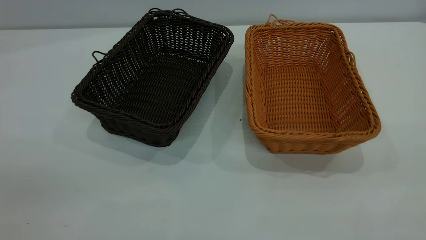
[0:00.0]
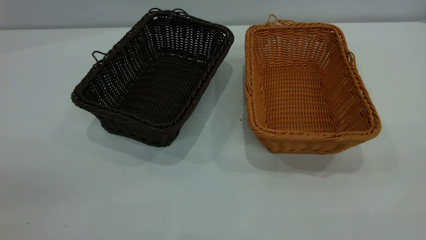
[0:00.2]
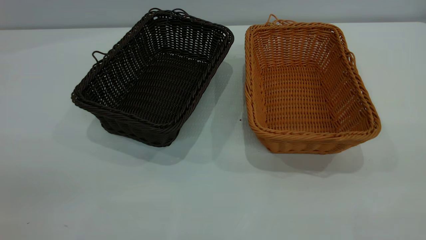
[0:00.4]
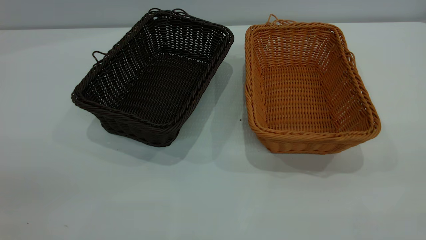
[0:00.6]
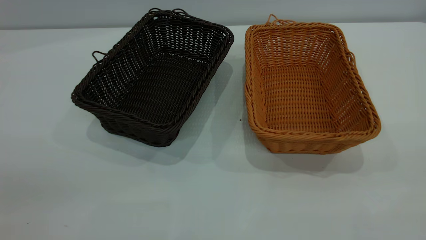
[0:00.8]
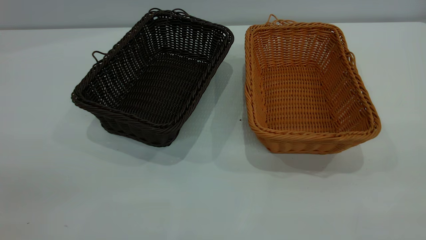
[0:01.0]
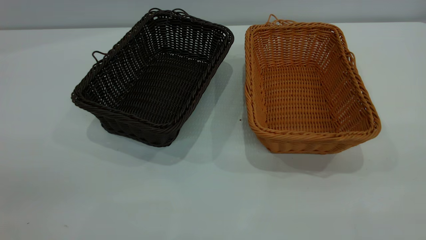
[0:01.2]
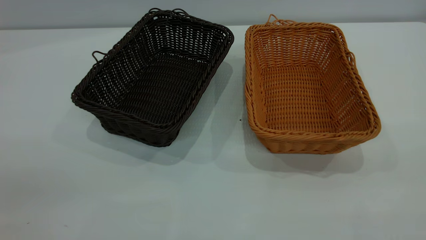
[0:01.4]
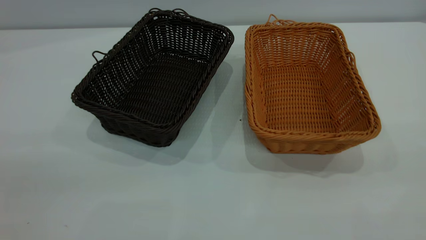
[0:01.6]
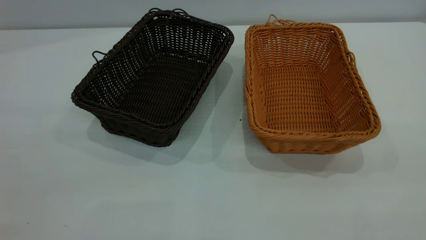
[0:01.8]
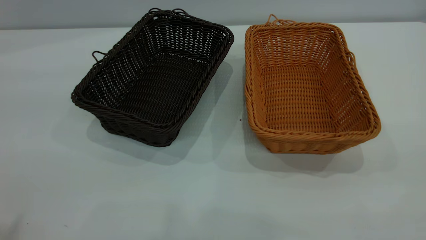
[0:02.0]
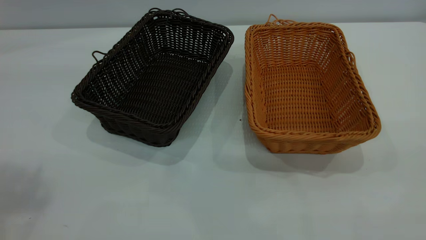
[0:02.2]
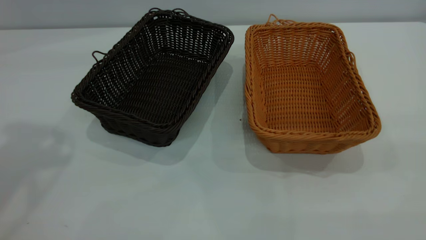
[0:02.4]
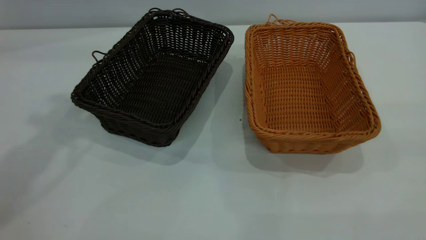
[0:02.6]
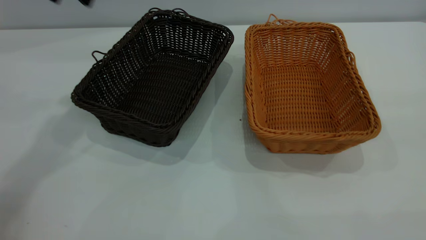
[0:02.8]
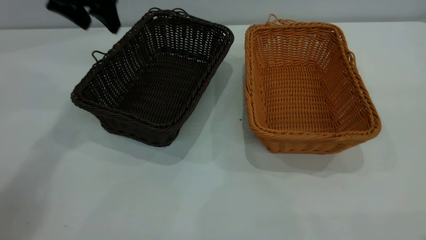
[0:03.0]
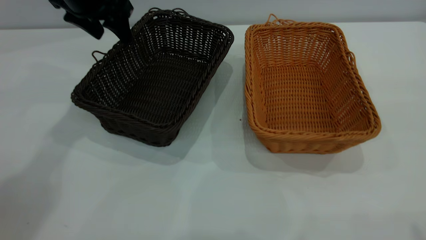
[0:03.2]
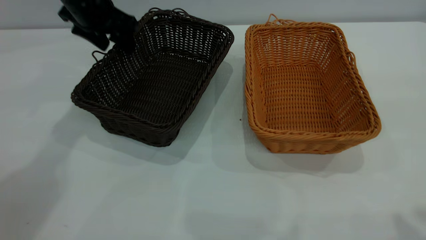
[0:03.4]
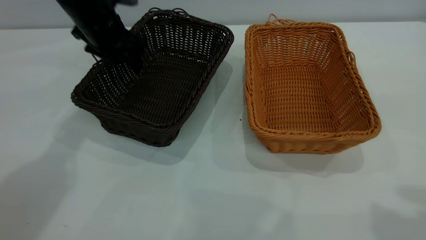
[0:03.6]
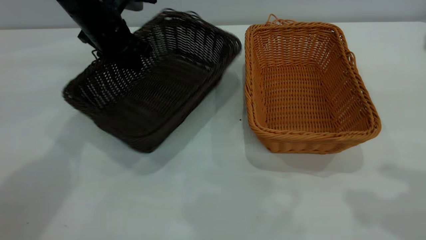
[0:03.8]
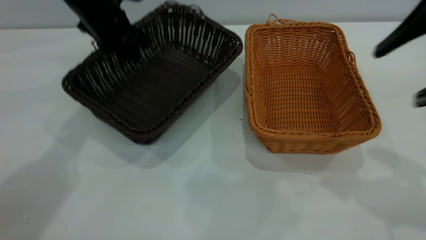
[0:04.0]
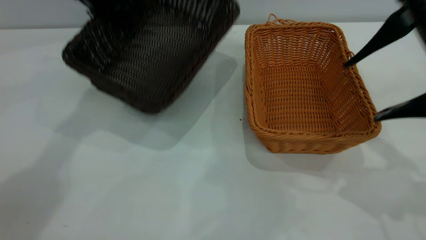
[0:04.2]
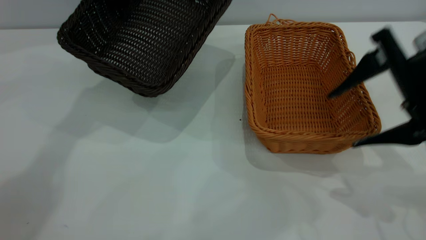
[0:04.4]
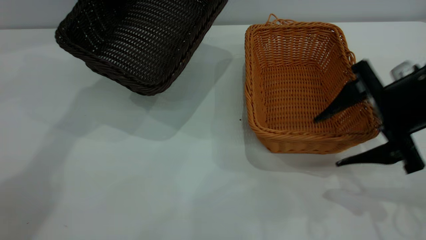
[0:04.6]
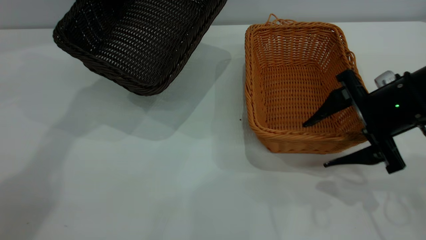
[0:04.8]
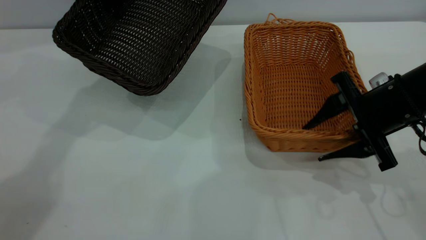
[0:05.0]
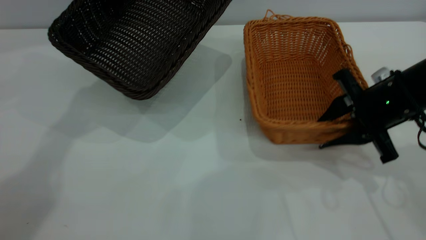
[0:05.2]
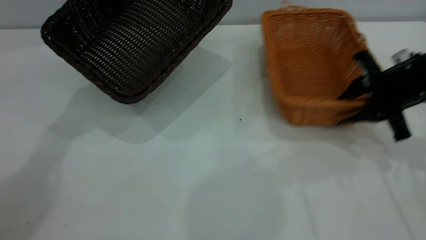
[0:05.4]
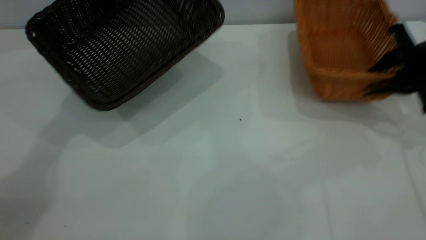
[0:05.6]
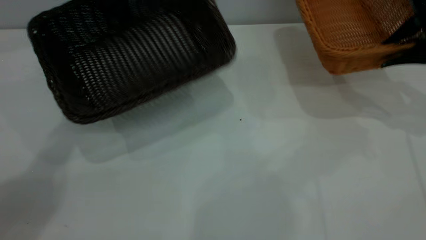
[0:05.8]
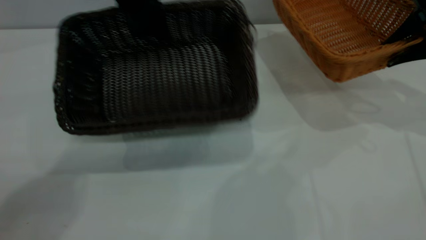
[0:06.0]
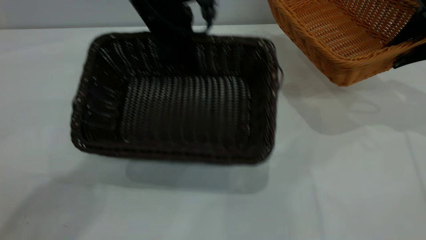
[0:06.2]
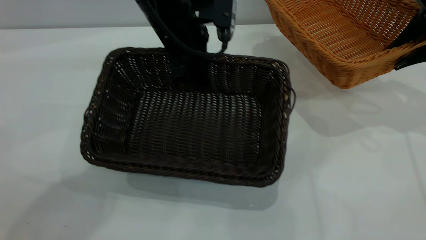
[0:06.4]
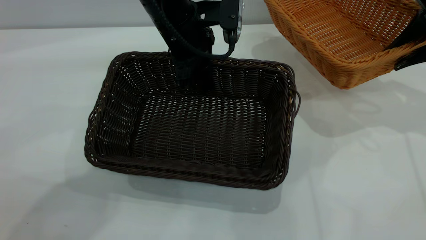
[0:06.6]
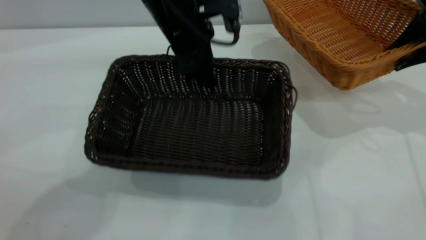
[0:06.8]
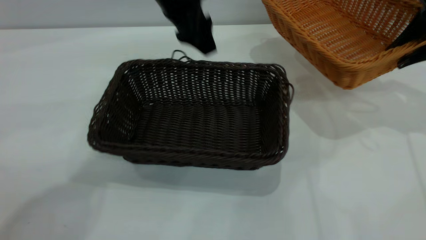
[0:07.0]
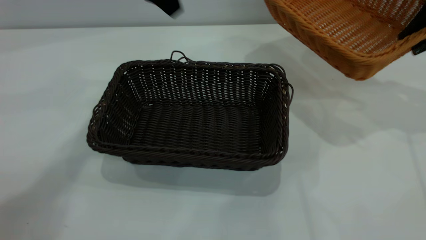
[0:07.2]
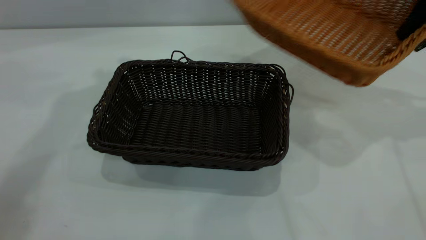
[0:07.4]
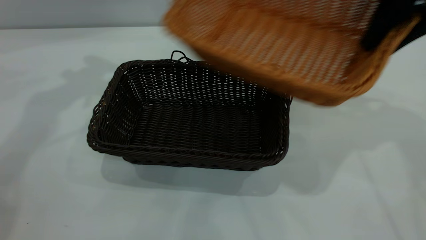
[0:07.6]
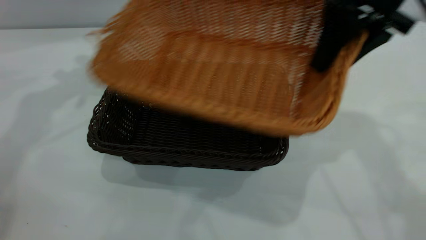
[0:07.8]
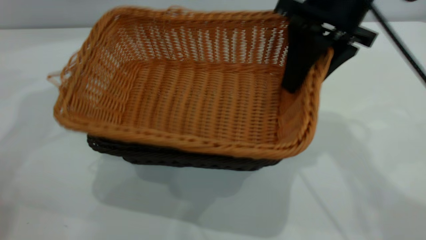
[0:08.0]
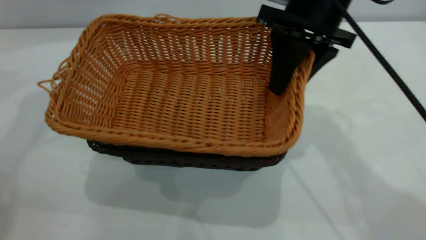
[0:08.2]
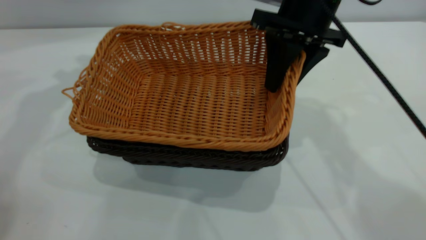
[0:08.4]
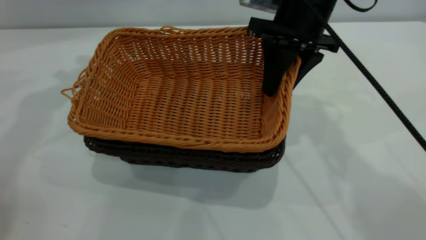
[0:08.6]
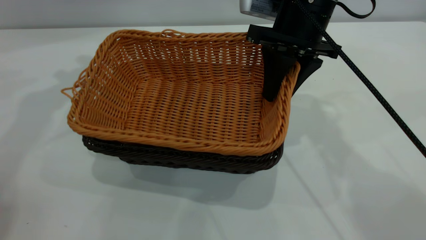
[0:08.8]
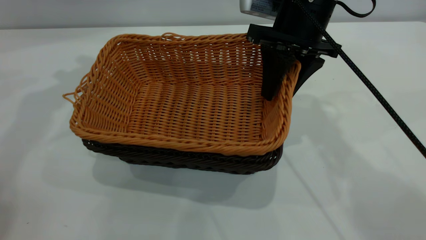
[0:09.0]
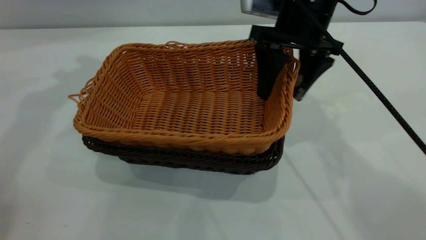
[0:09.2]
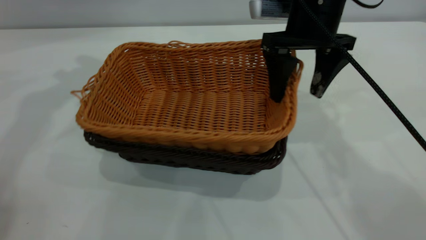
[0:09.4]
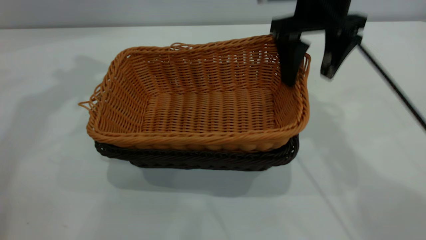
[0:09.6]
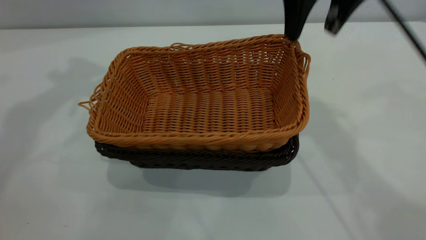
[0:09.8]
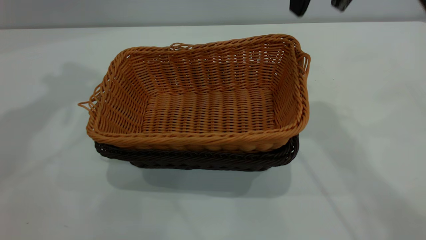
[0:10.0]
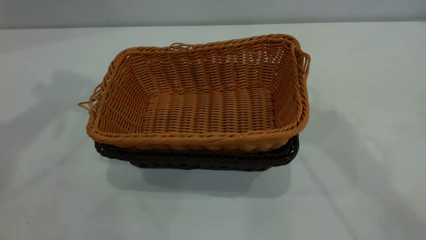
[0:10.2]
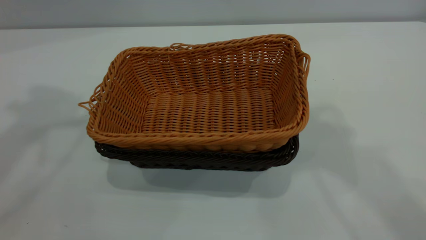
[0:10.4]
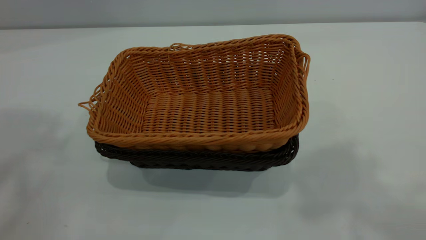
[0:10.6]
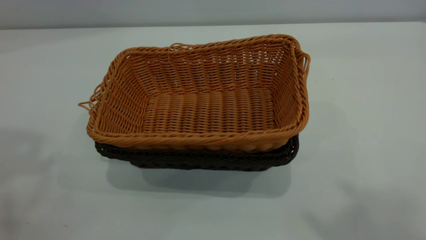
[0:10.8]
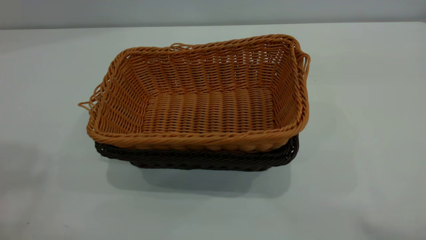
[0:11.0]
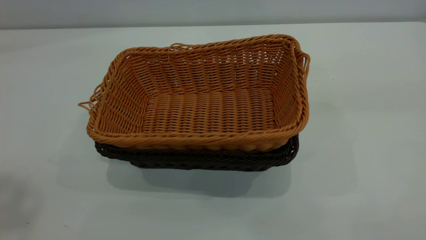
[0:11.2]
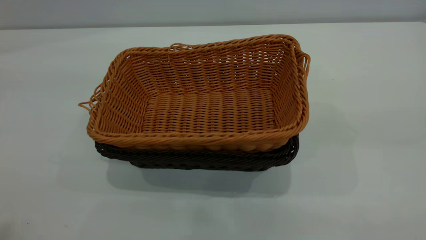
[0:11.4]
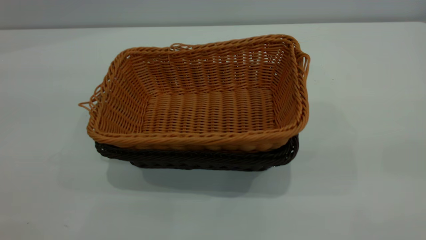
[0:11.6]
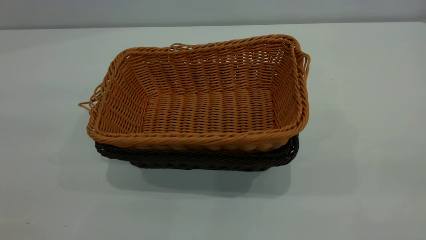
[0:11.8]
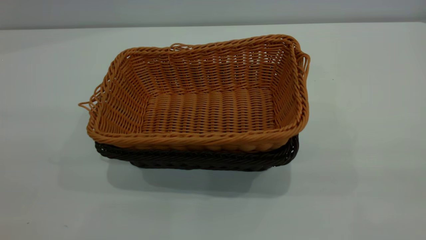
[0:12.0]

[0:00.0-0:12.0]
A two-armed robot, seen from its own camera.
Task of the whole recording: the left gripper grasp the black basket and place it in the center of the table, the right gripper grasp the brown basket and place it inside the black one.
Step, 0:00.0 to 0:05.4: Pick up the light basket with the right gripper.
Step, 0:05.6 to 0:07.0: Move the dark basket to the center of view.
Step, 0:07.2 to 0:09.6: Place the light basket on the dark basket.
0:01.6 to 0:03.0: The left gripper shifts about 50 cm forward.
0:03.0 to 0:04.4: The left gripper reaches about 10 cm downward, then returns, and closes up; the right gripper is displaced downward and forward by approximately 30 cm.
0:04.4 to 0:06.0: The right gripper is displaced forward and to the right by some 15 cm, and closes its fingers. Meanwhile the left gripper goes about 10 cm to the right.
0:06.0 to 0:07.6: The two grippers go about 15 cm to the left and upward. The left gripper opens up.
0:07.6 to 0:09.0: The right gripper moves to the left and downward, some 15 cm, and opens its fingers.
0:09.0 to 0:10.4: The right gripper travels upward by some 30 cm, and opens up, while the left gripper shifts roughly 25 cm upward and backward.
